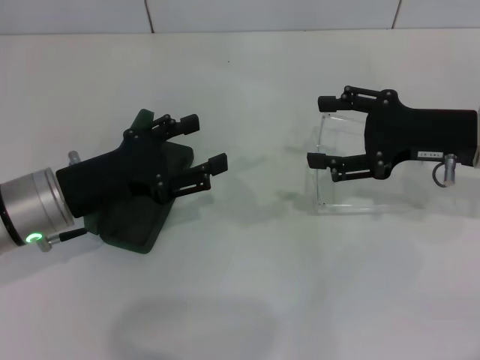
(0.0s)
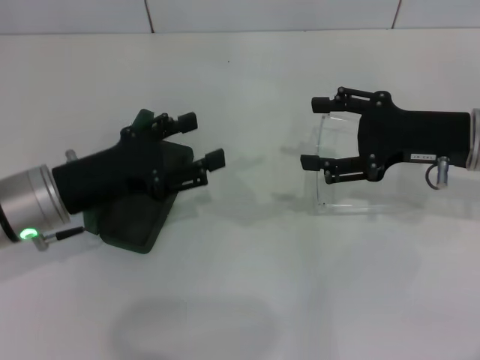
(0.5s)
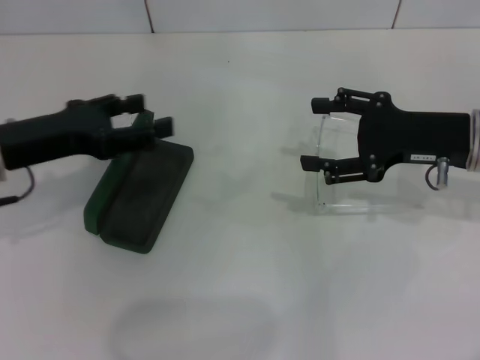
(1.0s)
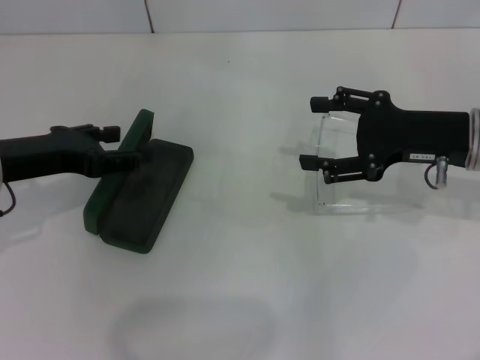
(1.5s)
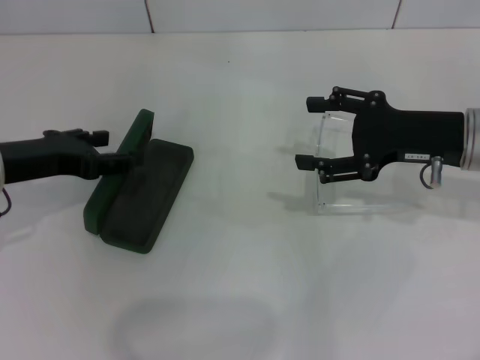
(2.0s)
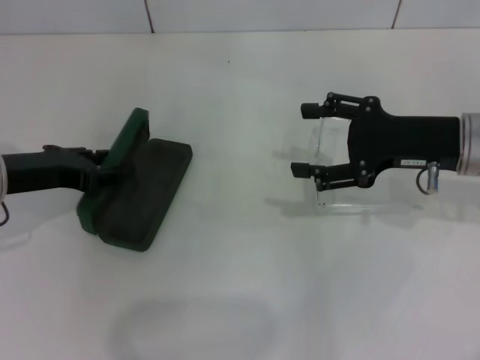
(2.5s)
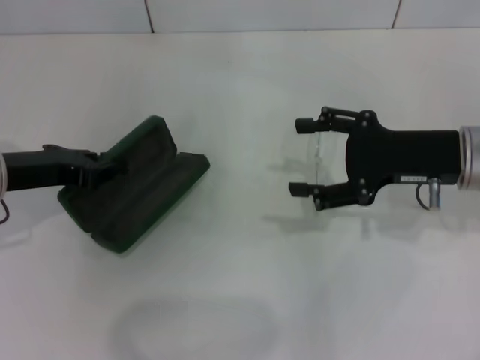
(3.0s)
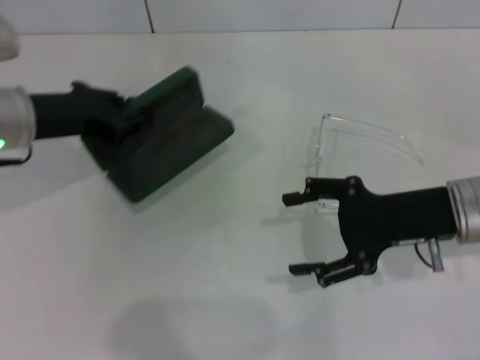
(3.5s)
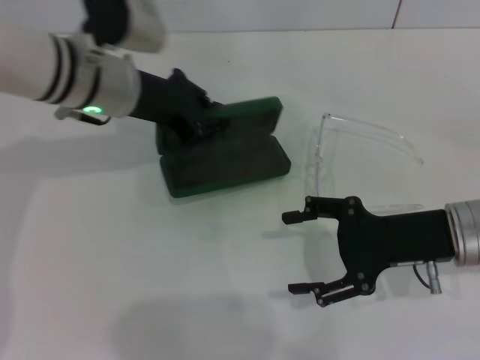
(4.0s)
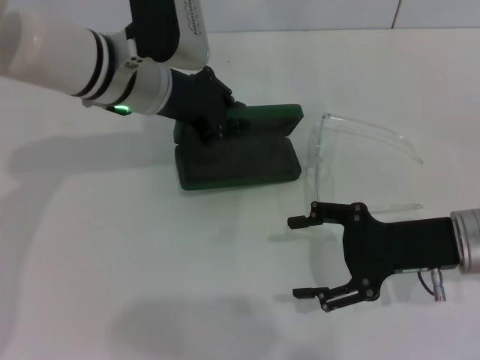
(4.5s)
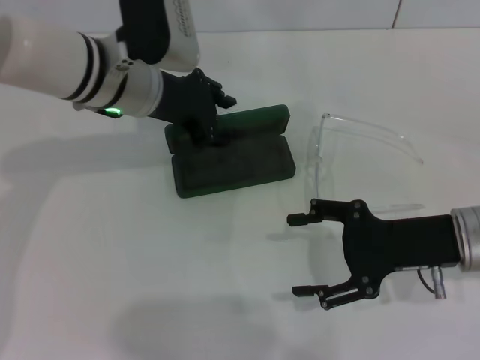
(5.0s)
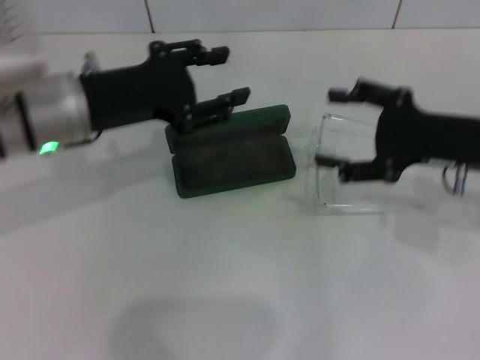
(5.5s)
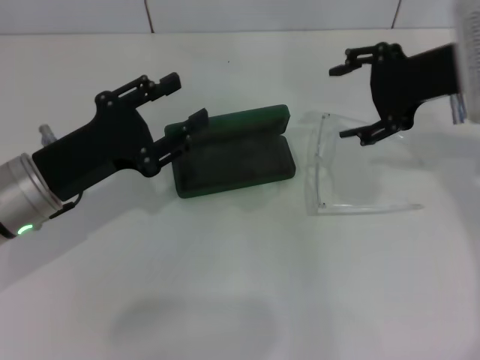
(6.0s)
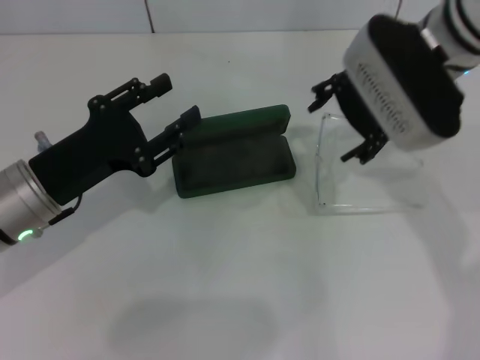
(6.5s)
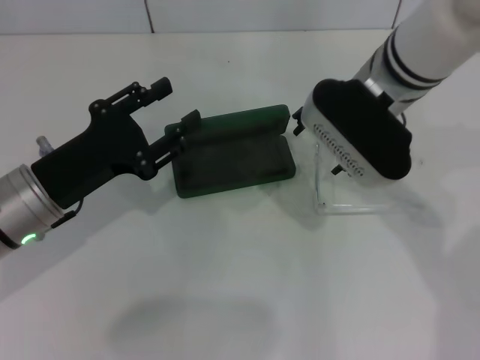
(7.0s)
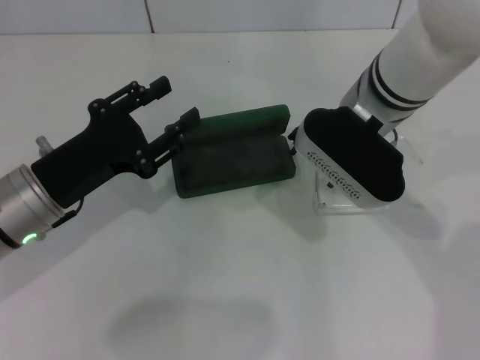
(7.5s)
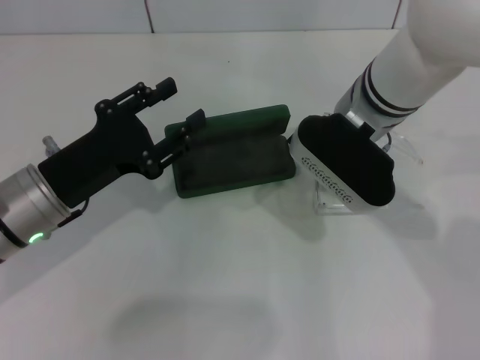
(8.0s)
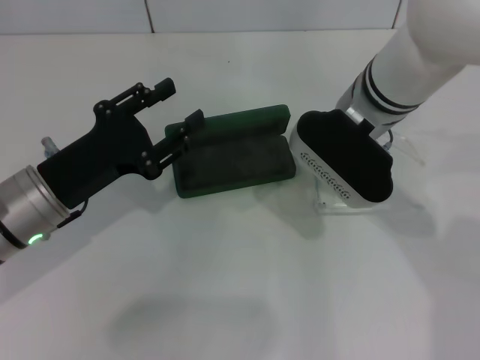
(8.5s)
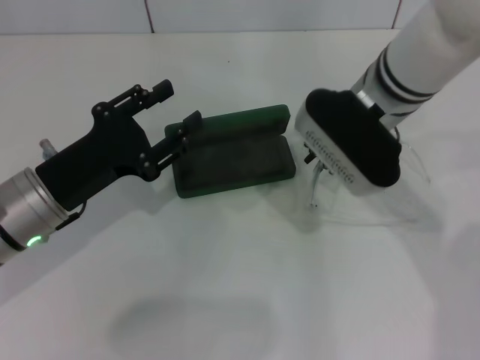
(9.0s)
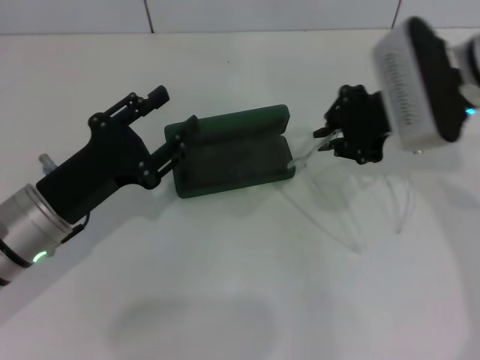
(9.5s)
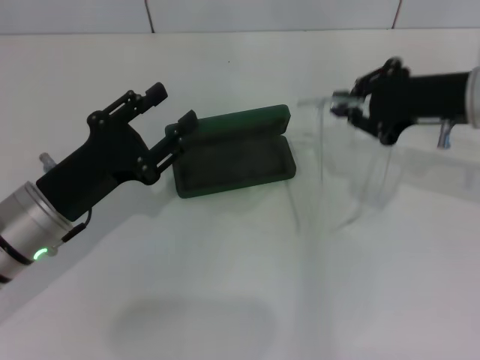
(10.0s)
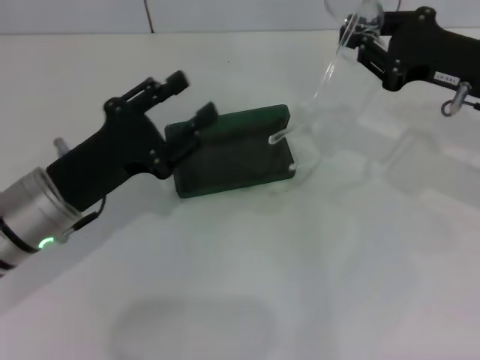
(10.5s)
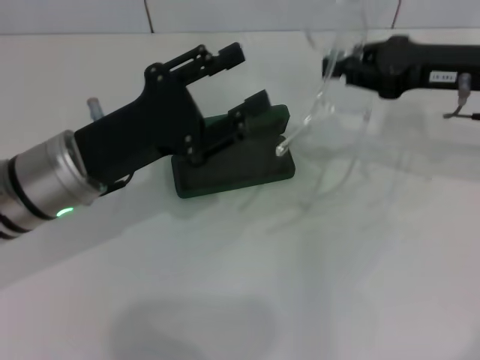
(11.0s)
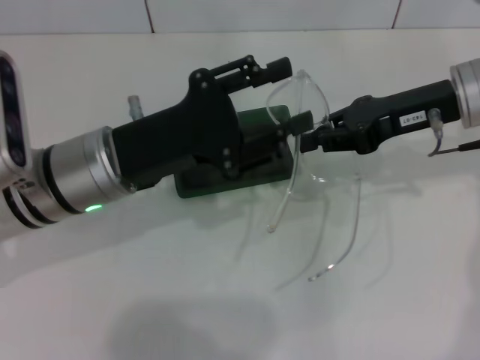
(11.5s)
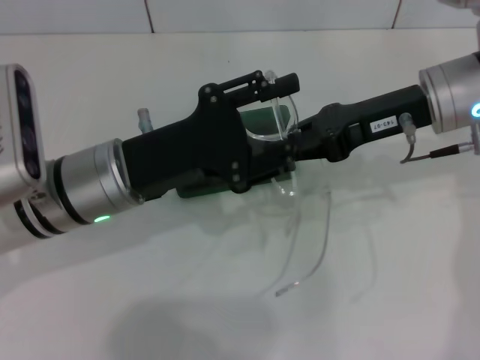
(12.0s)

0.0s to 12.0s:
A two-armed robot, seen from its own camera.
Step, 0.0s to 2.5s: Grab the glasses case with your left hand.
Step, 3.0s to 4.5s: Place the glasses case in the center of the table with your left hand.
Step, 5.5s to 8.5s: Grab the eyeglass frame with your right hand.
0.0s to 2.0s: The left gripper heads to the left, covering roughly 5 cm.
2.0s to 4.0s: The right gripper moves backward, some 5 cm. The left gripper moves to the right and forward, about 15 cm, and closes.
4.0s to 6.0s: The right gripper heads upward and forward, covering some 15 cm, while the left gripper shifts some 15 cm backward, to the left and downward, and opens.
6.0s to 8.0s: The right gripper goes about 15 cm to the left and downward.
8.0s to 10.0s: The right gripper travels to the right by some 15 cm, and closes its fingers.
10.0s to 12.0s: The left gripper heads to the right, covering about 5 cm.

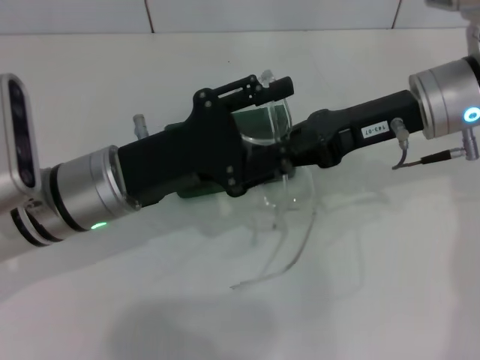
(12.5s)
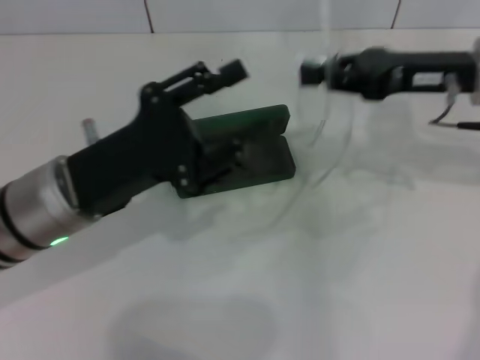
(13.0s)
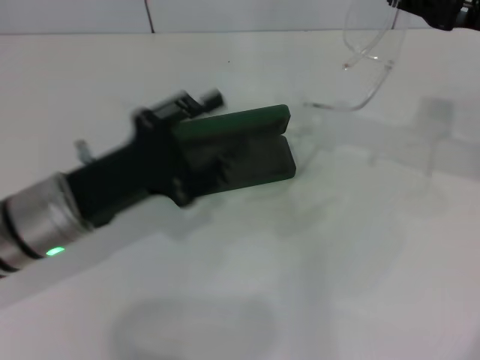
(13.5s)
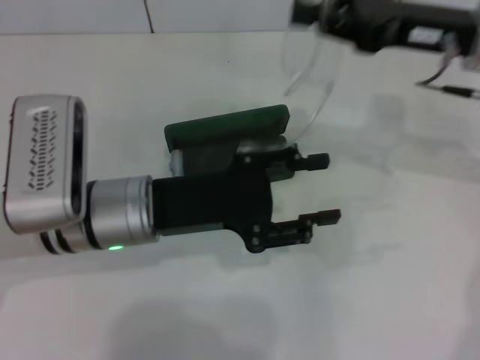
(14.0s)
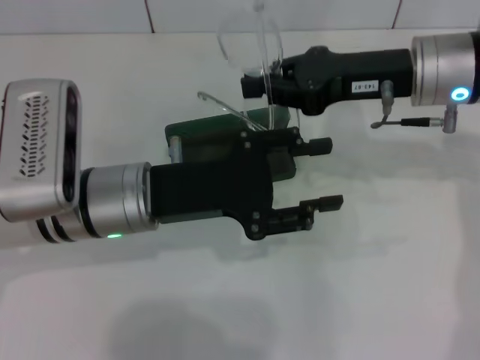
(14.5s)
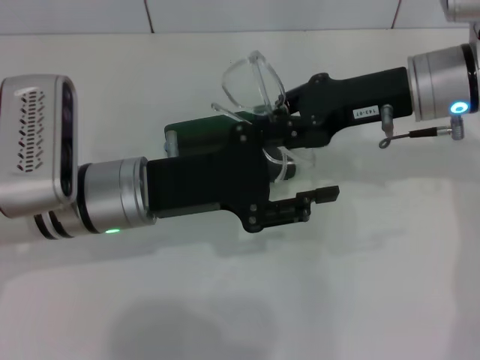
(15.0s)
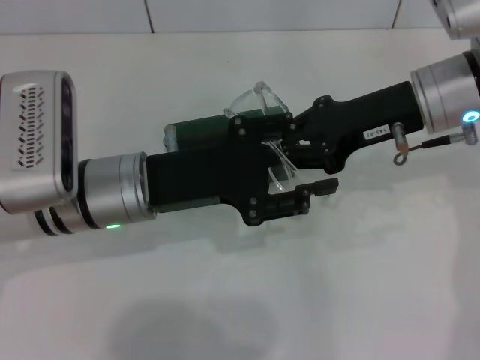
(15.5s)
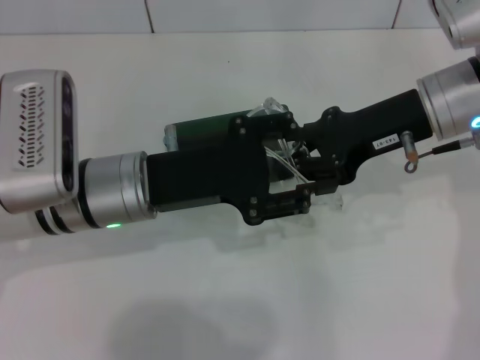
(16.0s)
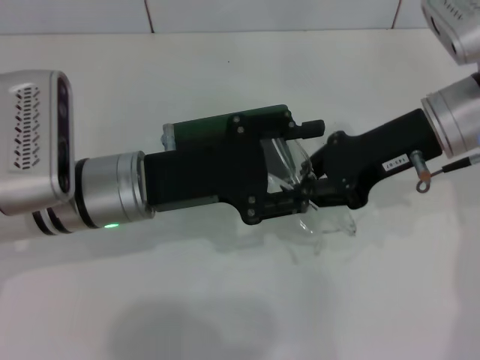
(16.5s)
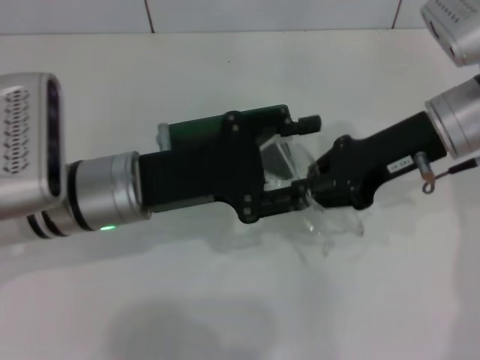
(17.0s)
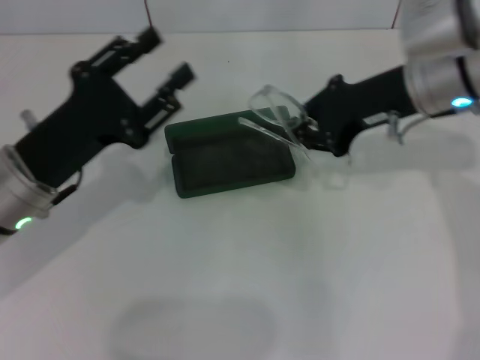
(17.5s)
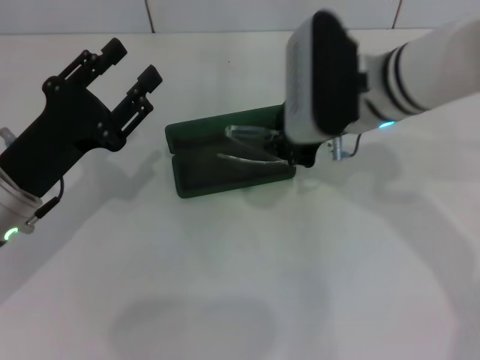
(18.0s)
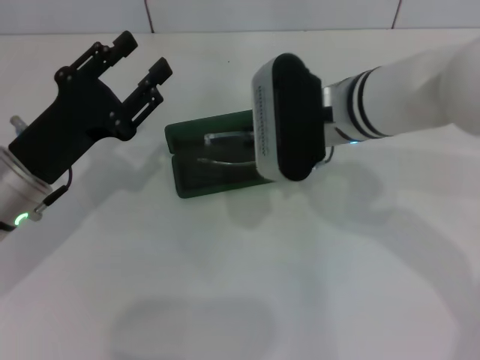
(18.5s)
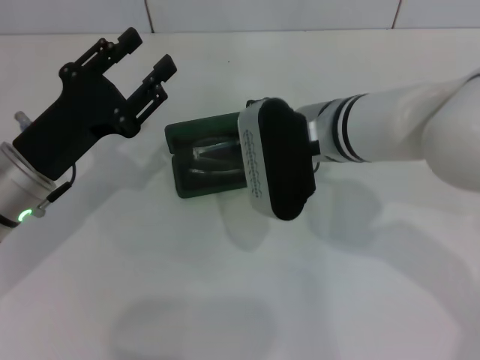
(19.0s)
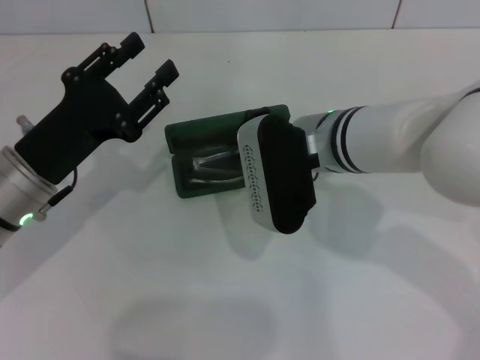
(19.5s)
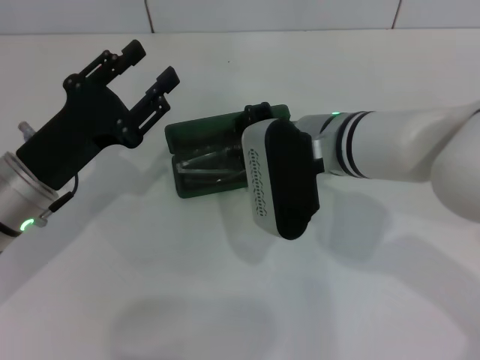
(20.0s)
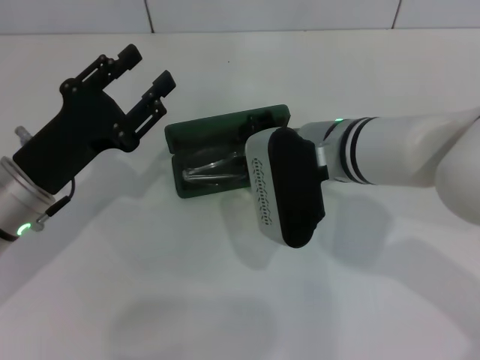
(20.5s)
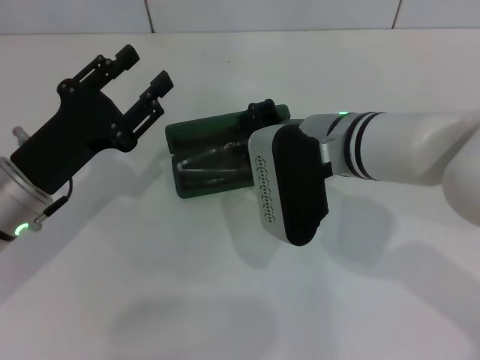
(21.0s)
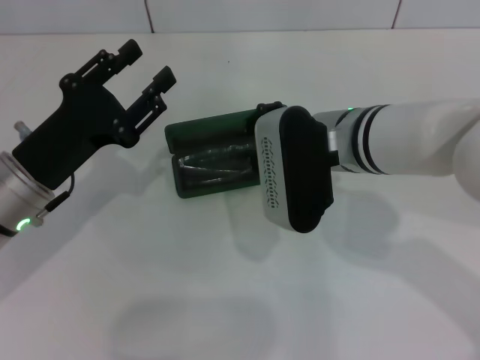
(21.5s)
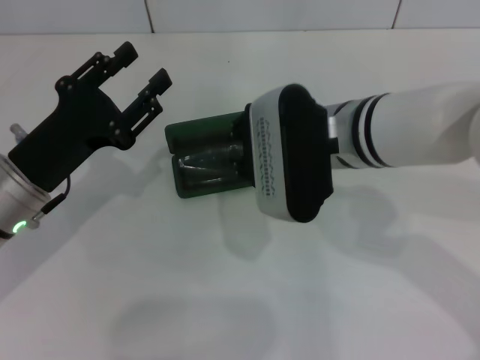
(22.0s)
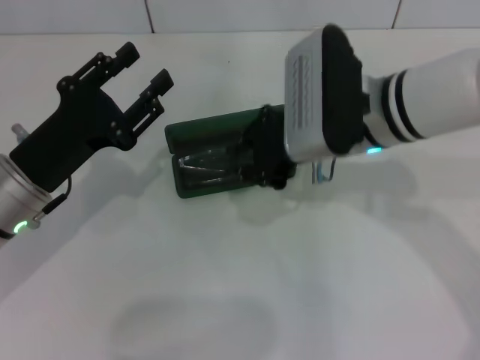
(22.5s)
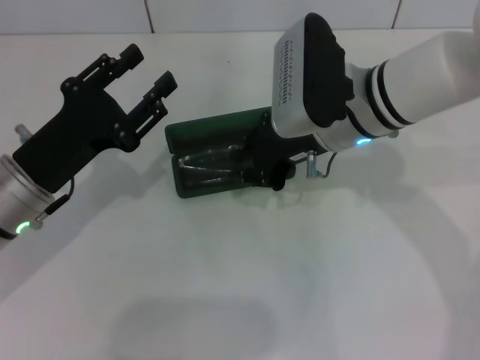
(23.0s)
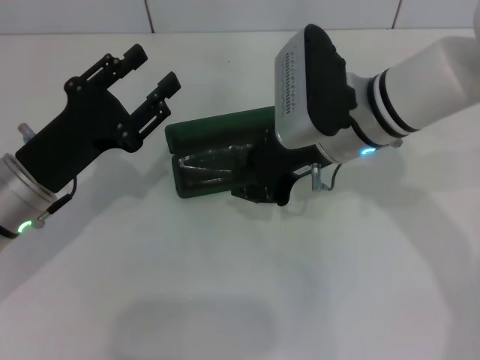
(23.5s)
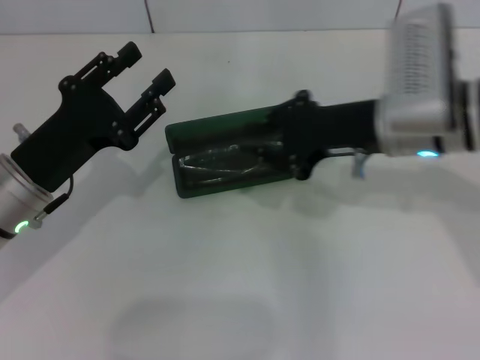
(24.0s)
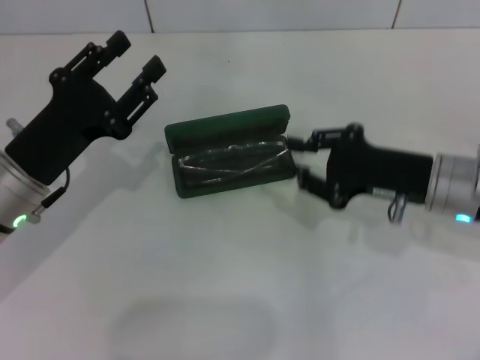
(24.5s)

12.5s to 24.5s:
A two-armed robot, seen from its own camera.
Step, 12.5s to 16.0s: Fold the frame with your left hand.
12.5s to 14.5s: The right gripper reaches approximately 10 cm to the right, then returns.
16.5s to 18.5s: Both grippers move to the left, roughly 10 cm.
22.5s to 24.5s: The right gripper shifts approximately 15 cm to the right and downward.

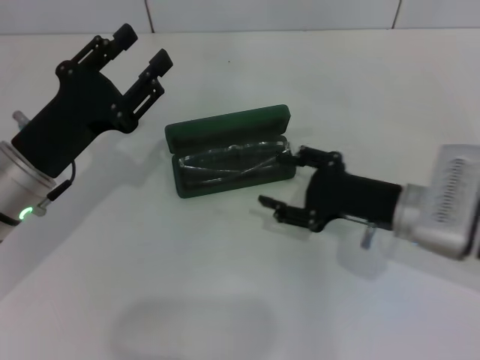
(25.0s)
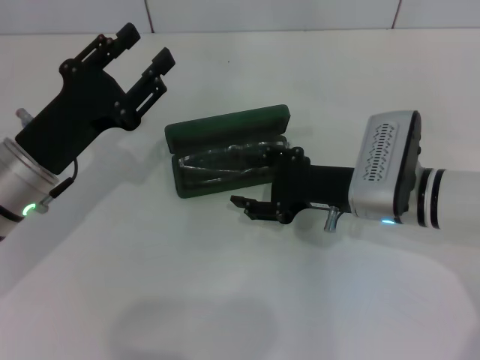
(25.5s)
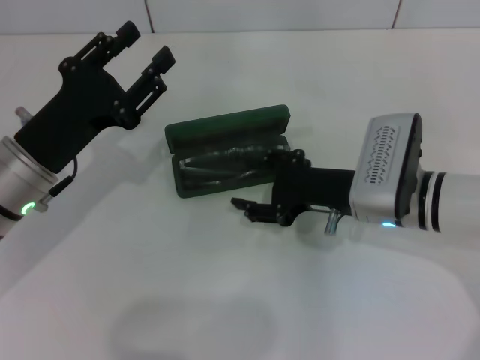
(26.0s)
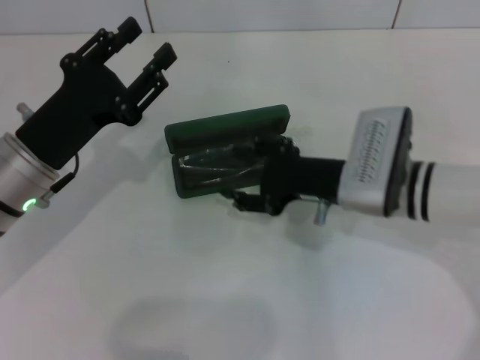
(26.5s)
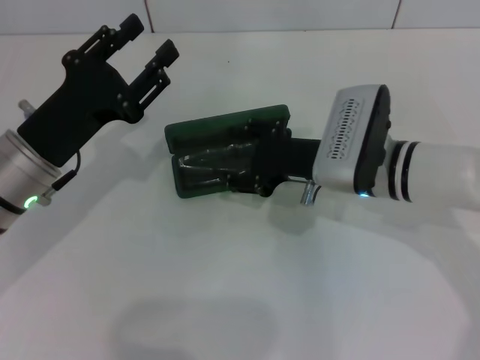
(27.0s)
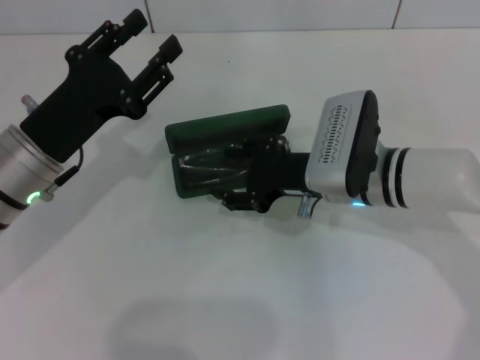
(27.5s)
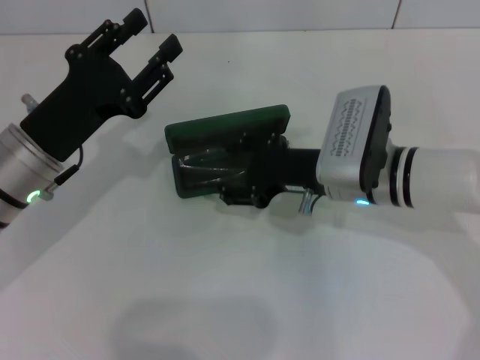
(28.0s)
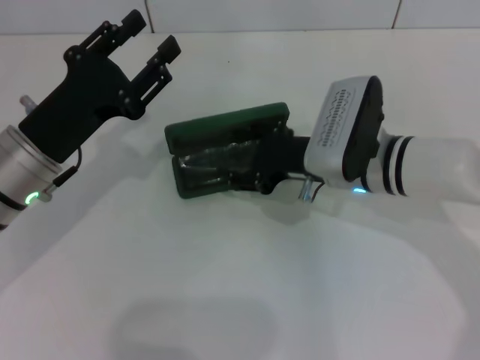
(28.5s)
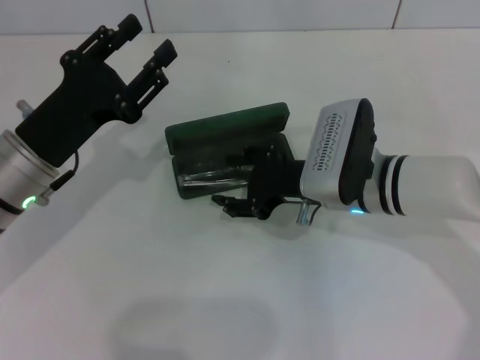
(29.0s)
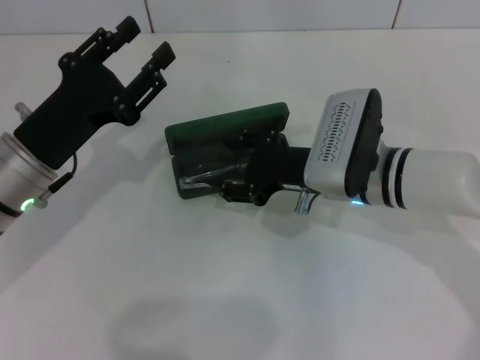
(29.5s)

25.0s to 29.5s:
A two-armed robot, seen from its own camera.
25.0s to 27.0s: The right gripper heads to the left, covering approximately 5 cm.
27.0s to 29.5s: The grippers make only small movements.
